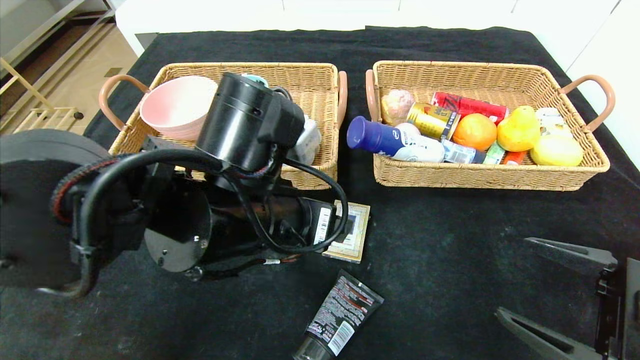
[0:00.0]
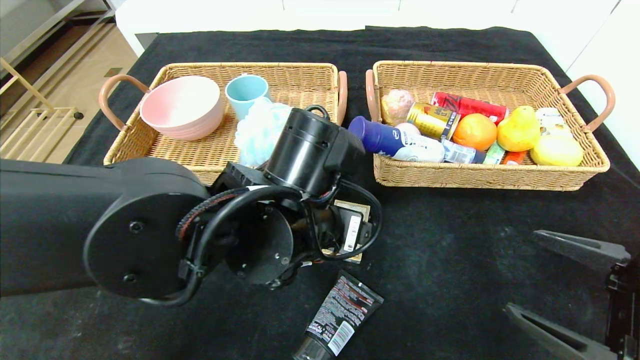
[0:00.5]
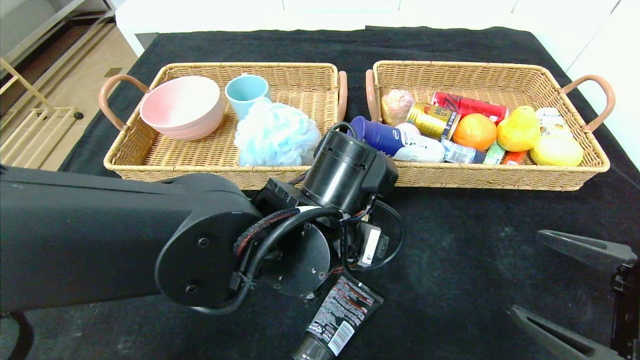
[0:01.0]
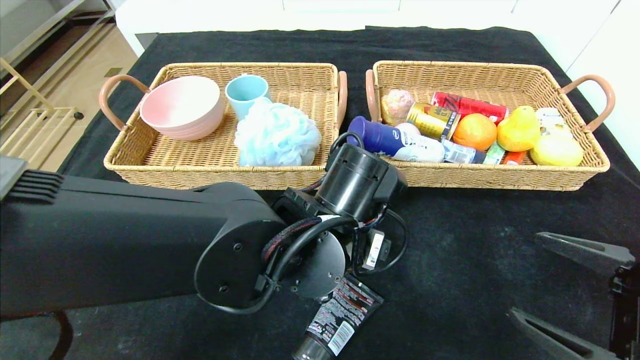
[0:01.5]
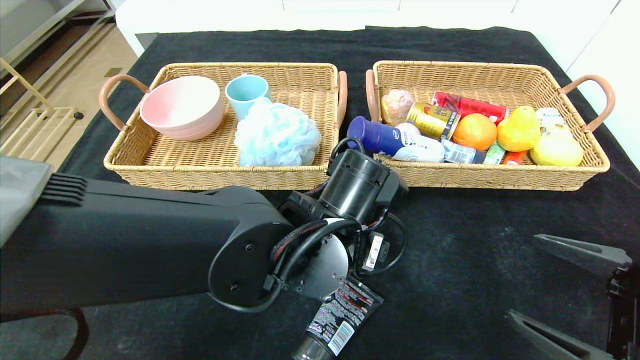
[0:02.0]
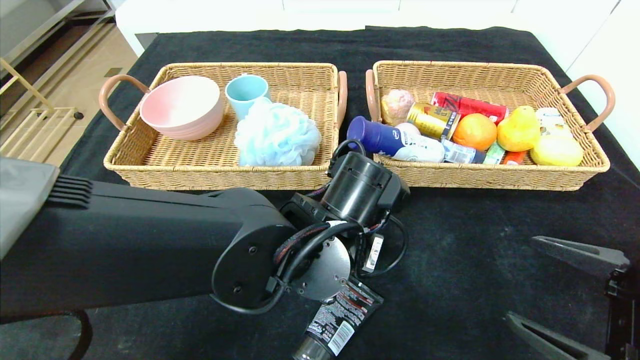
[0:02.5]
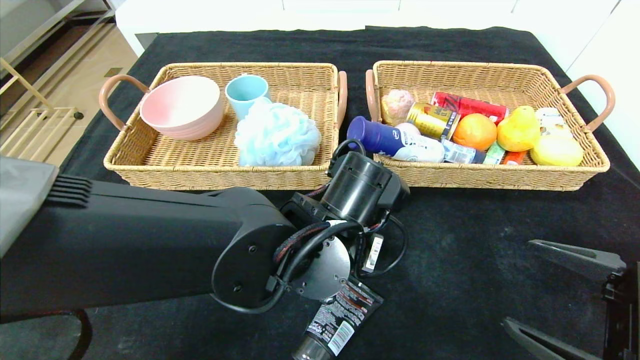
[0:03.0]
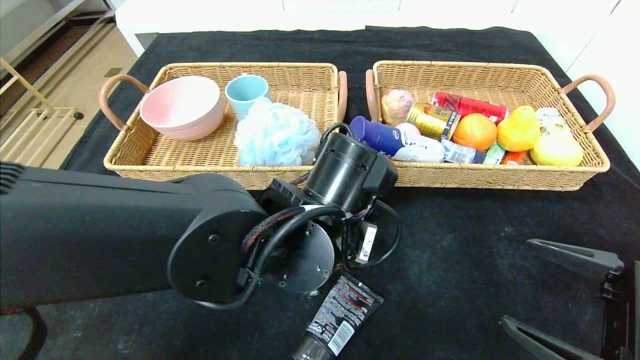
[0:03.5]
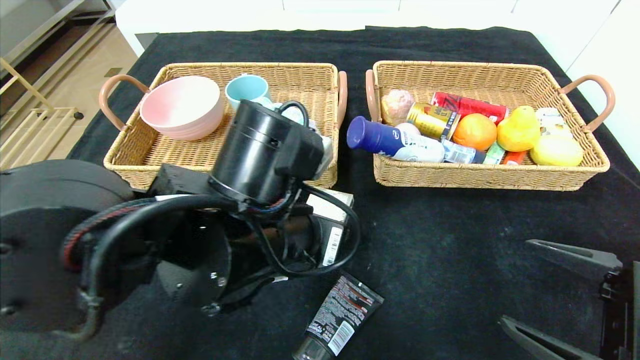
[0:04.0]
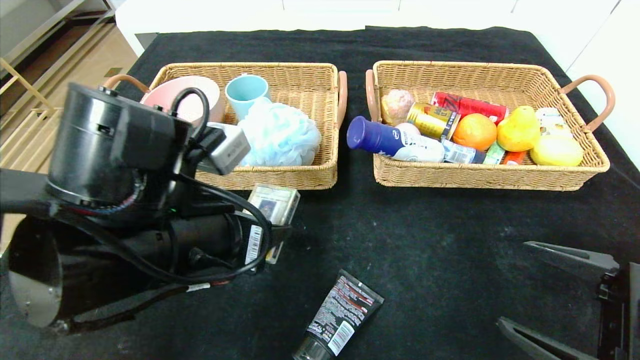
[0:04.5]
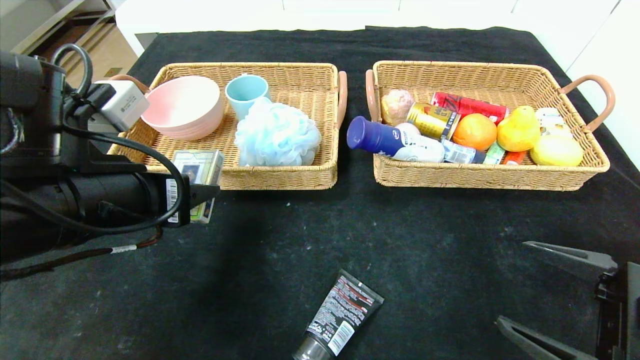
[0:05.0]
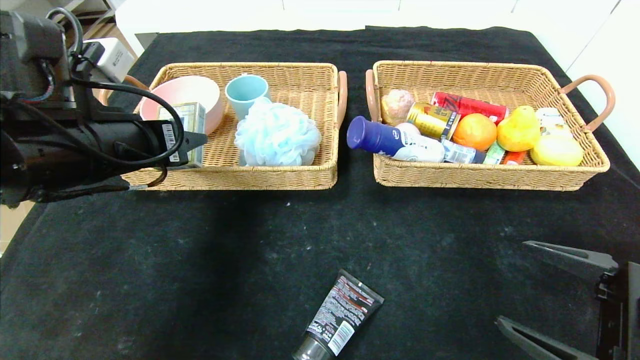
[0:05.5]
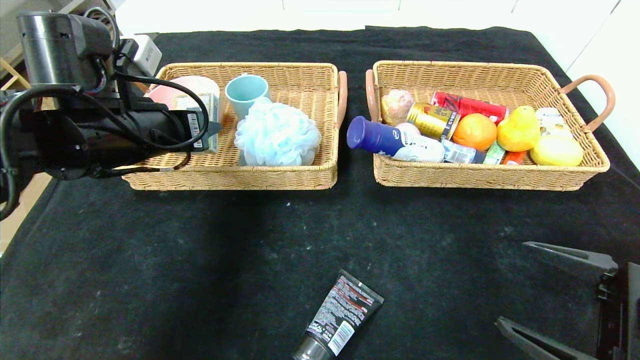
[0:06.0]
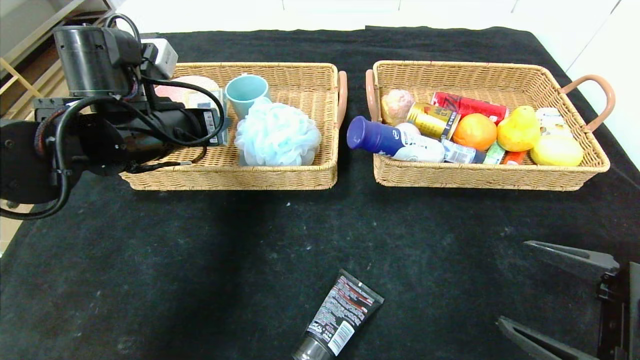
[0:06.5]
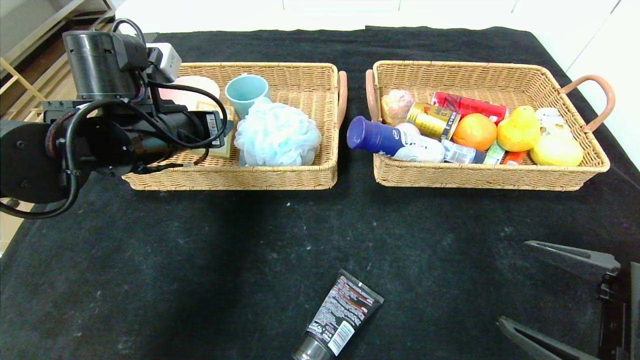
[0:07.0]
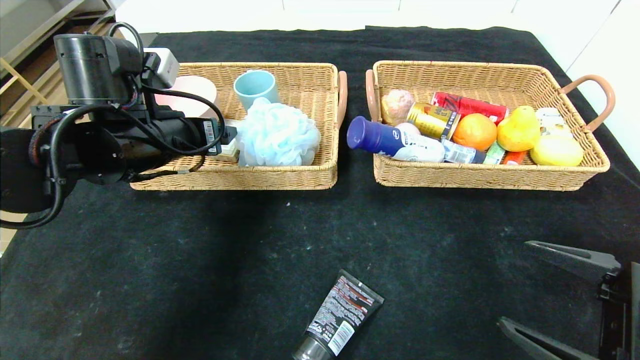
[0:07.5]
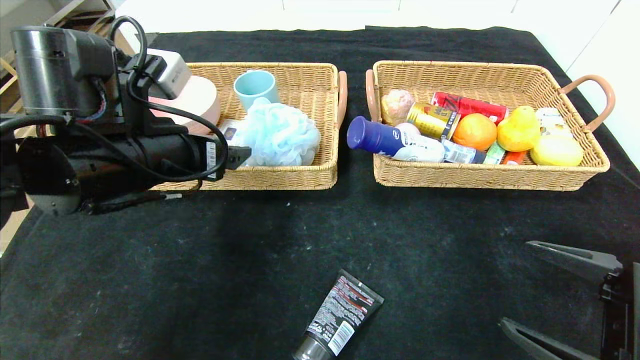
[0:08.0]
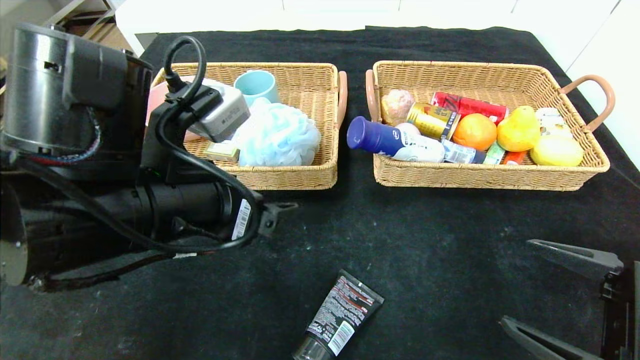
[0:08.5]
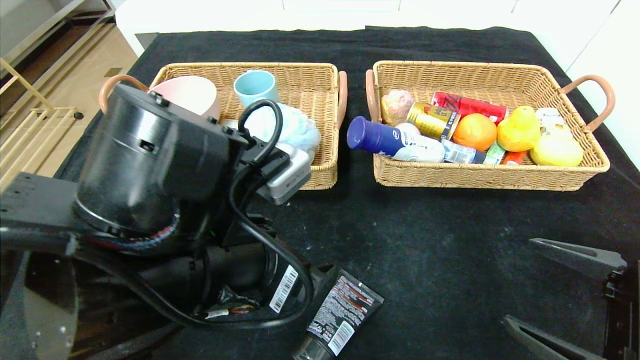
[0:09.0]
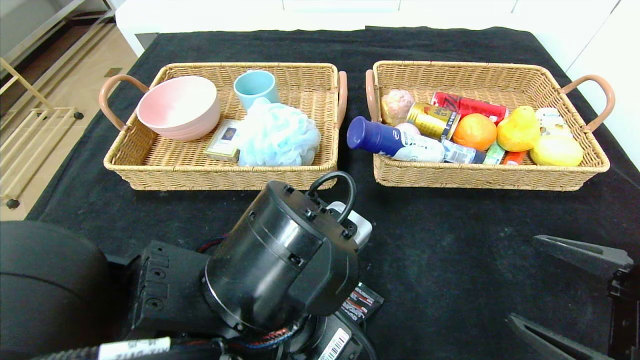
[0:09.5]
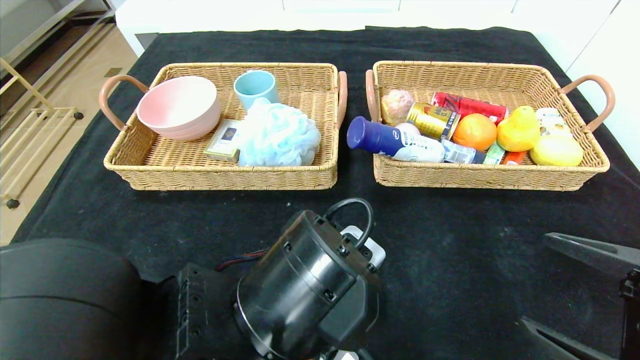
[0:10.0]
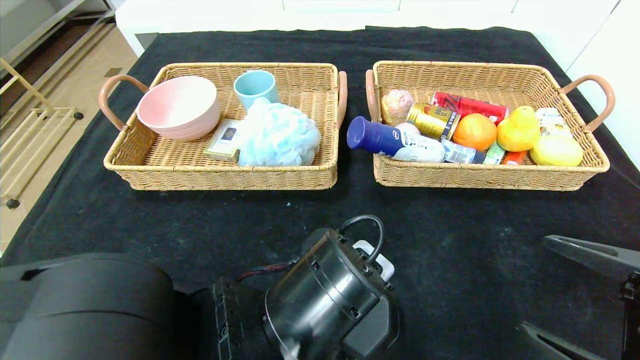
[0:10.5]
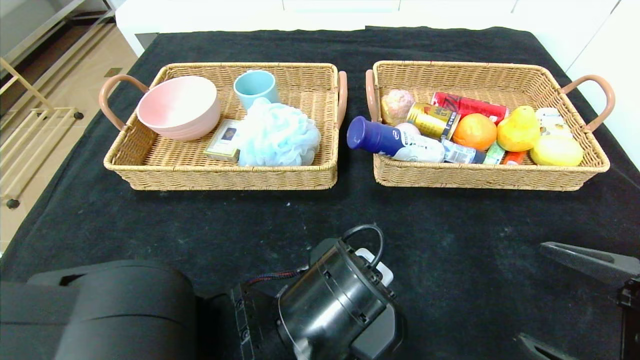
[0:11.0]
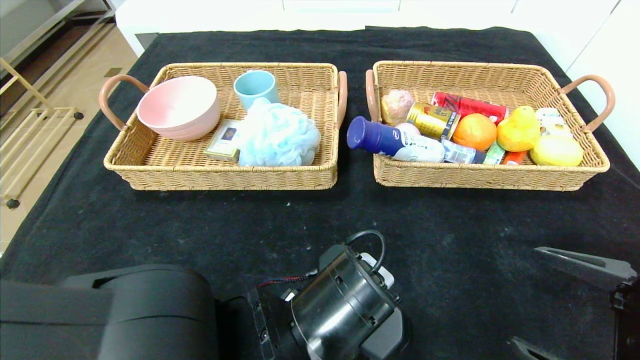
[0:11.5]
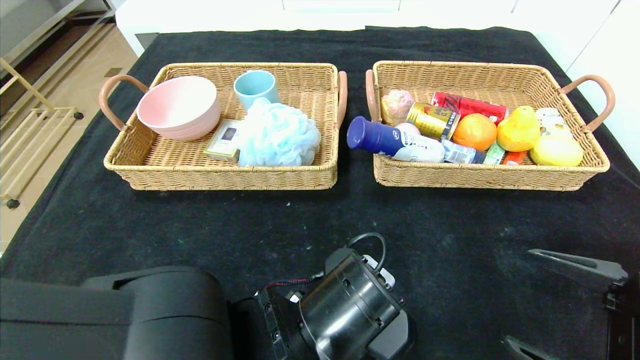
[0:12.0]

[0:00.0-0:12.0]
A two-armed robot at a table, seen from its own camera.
Step, 0:00.0 to 0:08.5: Pick up the playing cards and put it in the left basket.
0:00.0 to 0:02.0: The left gripper moves to the right and downward, approximately 10 cm.
0:02.0 to 0:04.0: The left gripper is displaced to the left by some 5 cm, and closes.
0:04.0 to 0:06.0: The left gripper shifts about 20 cm to the left and forward.
0:06.0 to 0:08.0: The left gripper opens.
0:08.0 to 0:10.0: The left gripper shifts about 20 cm to the right, backward and downward.
0:10.0 to 0:12.0: The grippers stay close to where they were, moving slightly.

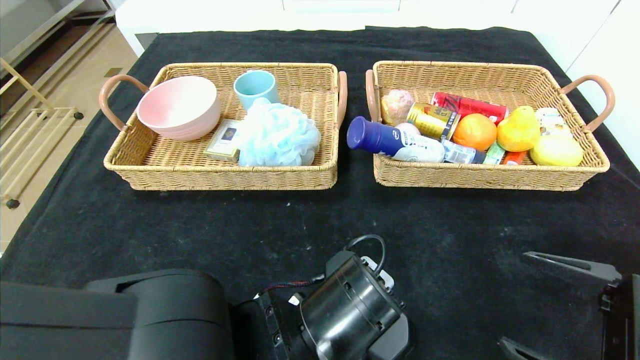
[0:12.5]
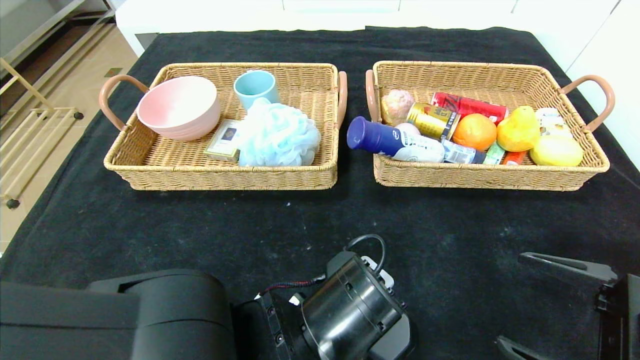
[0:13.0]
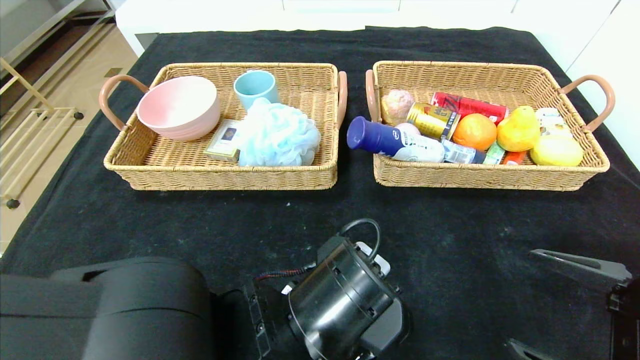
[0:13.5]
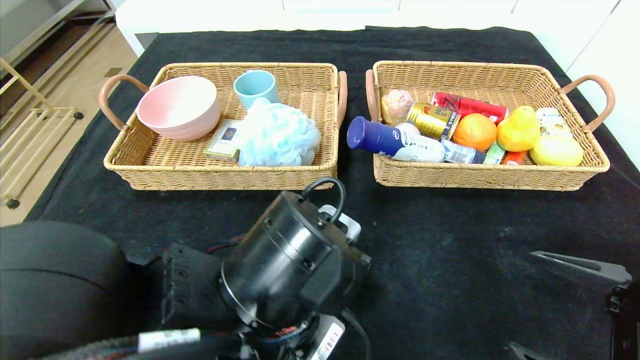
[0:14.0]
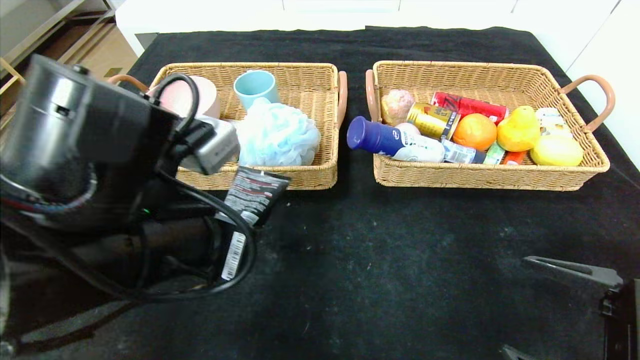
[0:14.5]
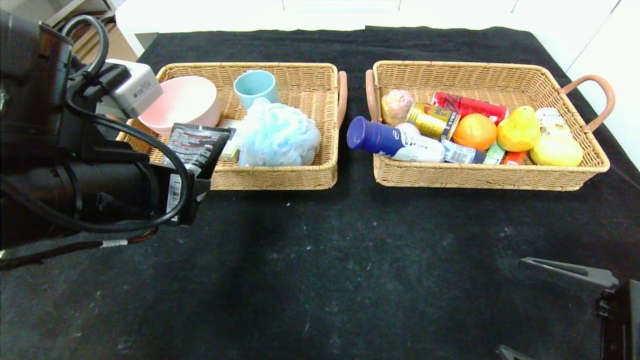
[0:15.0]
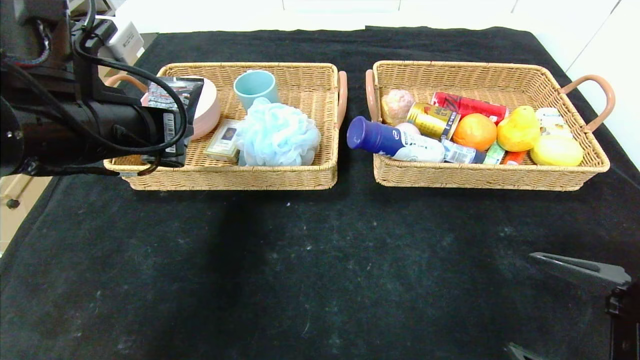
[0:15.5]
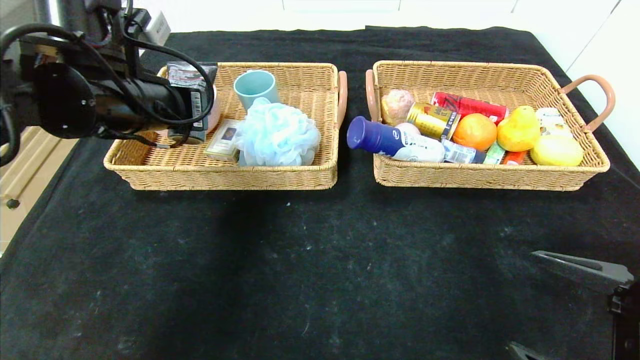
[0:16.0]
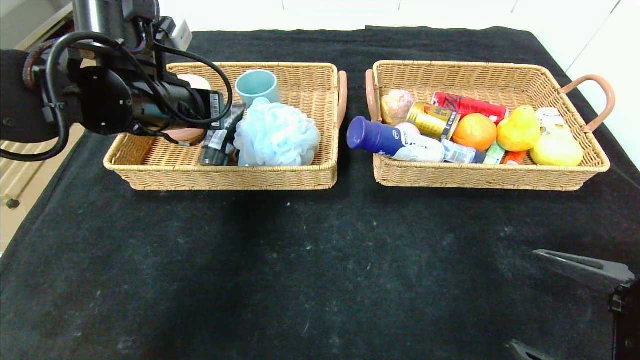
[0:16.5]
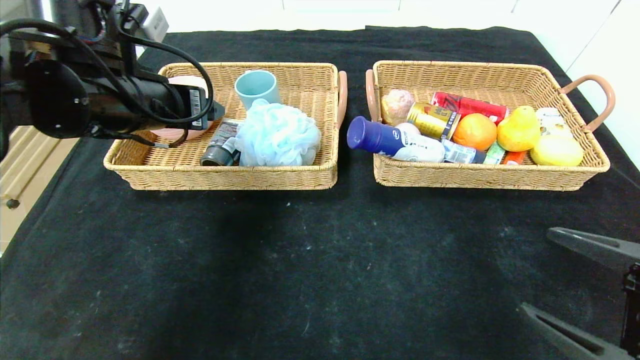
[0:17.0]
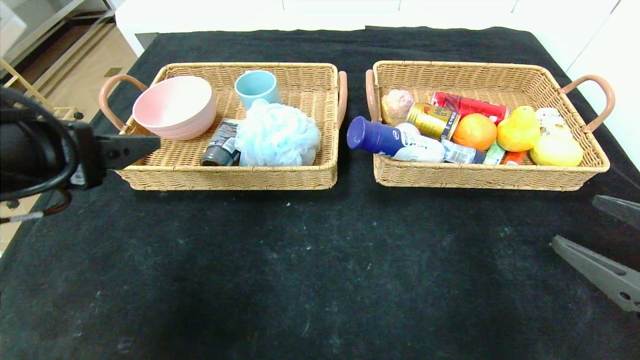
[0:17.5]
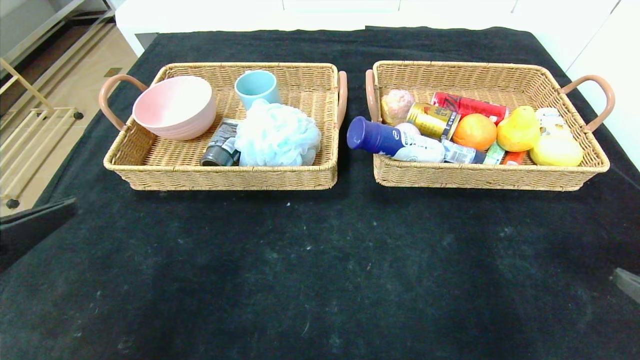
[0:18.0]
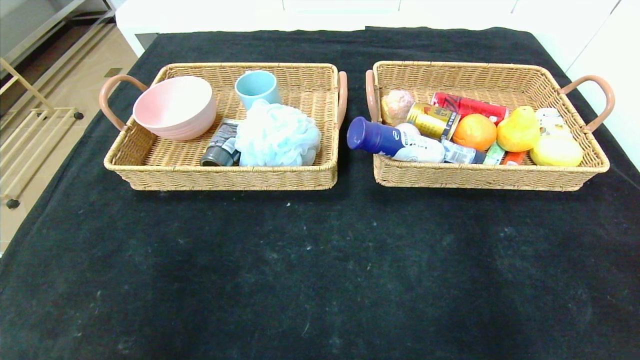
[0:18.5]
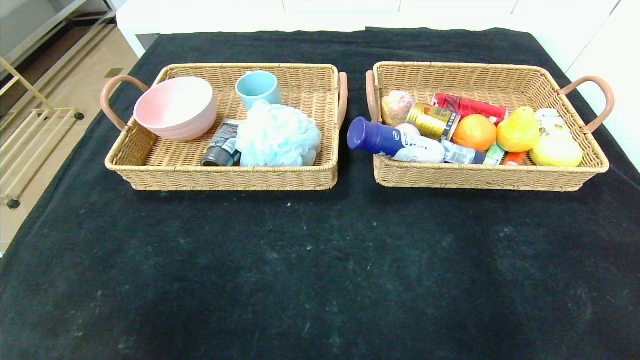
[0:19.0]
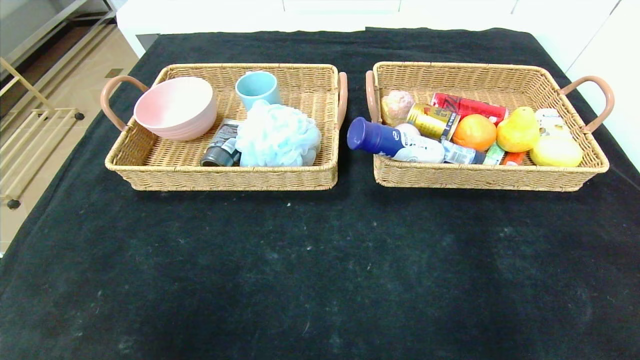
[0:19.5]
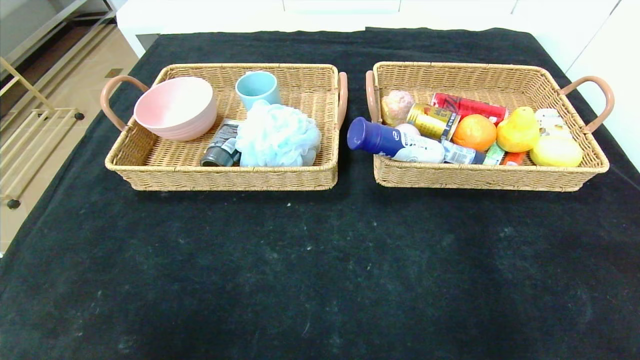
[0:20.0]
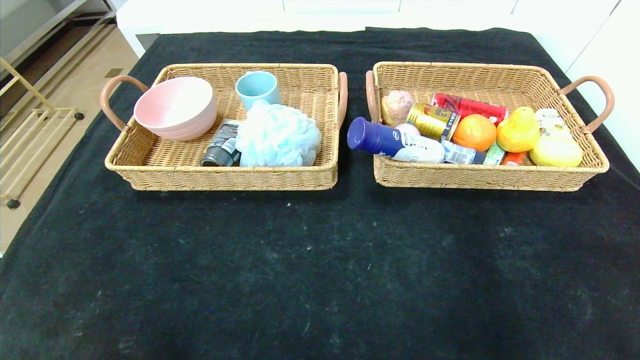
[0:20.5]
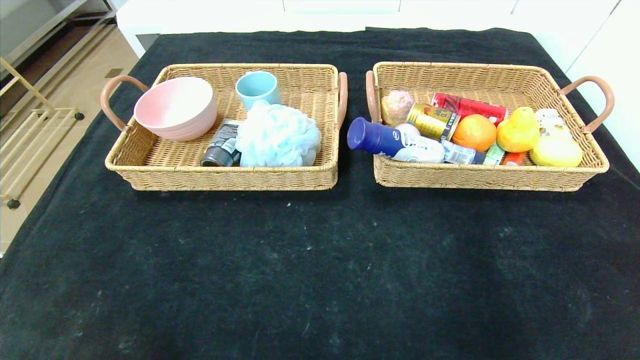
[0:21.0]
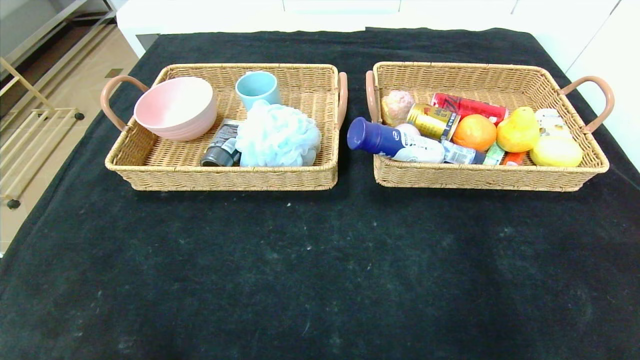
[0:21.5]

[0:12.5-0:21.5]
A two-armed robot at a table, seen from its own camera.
Step, 0:12.5 to 0:18.0: Pick up the soft cleanser and put it in the left basket.
0:12.5 to 0:14.5: The left gripper is displaced to the left and upward by about 15 cm.
0:14.5 to 0:17.0: The left gripper heads forward, to the left and upward, covering approximately 15 cm, and opens its fingers.
0:17.0 to 0:19.5: The right gripper moves backward, roughly 15 cm; the left gripper moves backward, some 35 cm.
